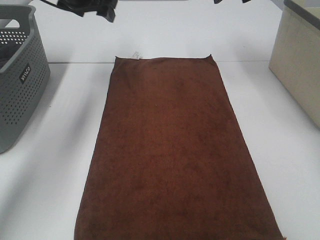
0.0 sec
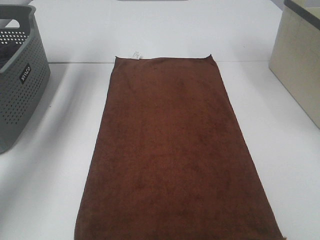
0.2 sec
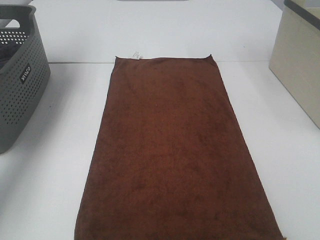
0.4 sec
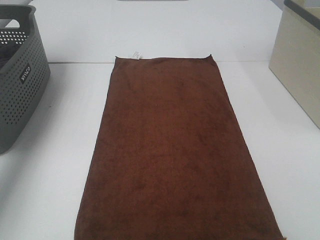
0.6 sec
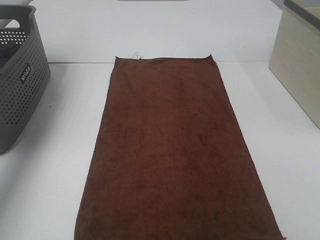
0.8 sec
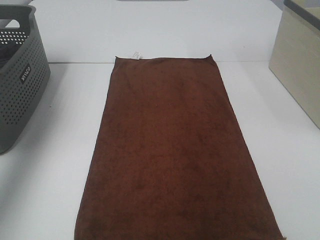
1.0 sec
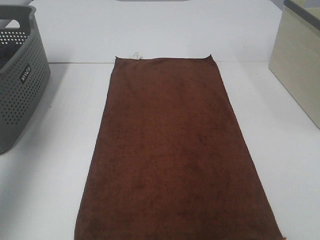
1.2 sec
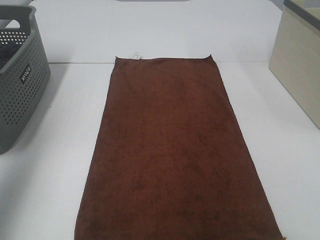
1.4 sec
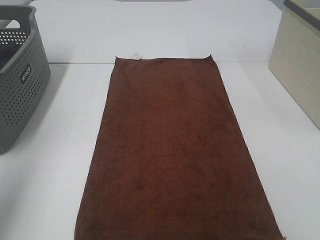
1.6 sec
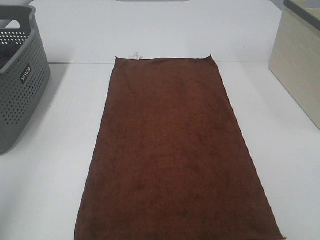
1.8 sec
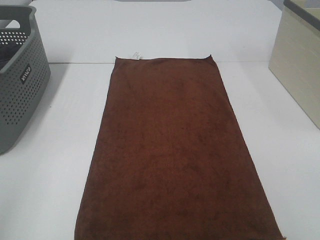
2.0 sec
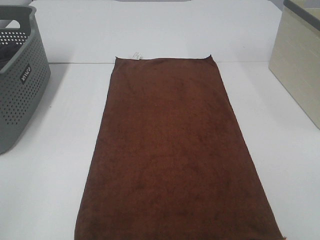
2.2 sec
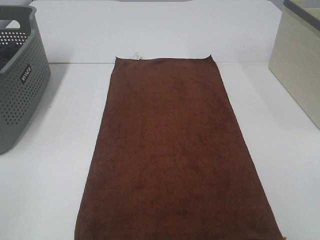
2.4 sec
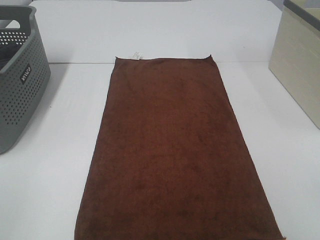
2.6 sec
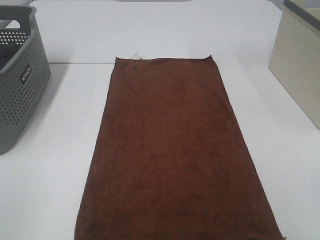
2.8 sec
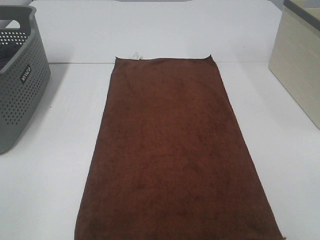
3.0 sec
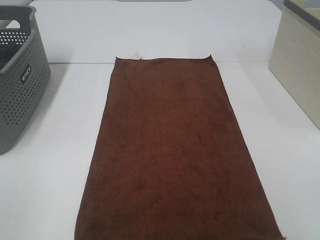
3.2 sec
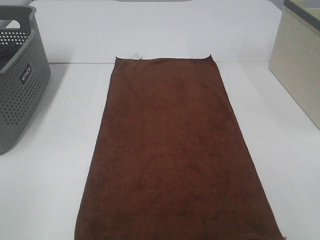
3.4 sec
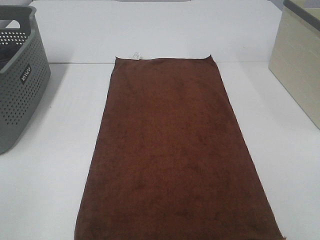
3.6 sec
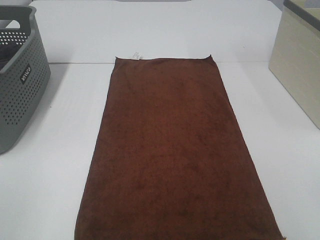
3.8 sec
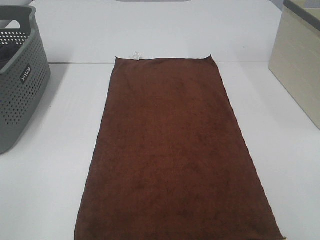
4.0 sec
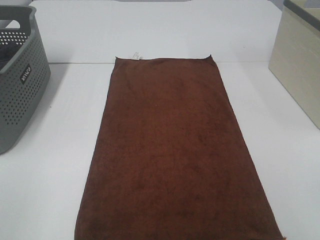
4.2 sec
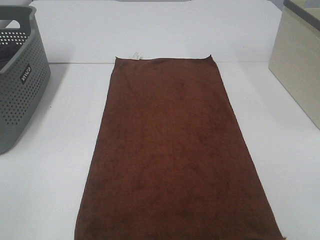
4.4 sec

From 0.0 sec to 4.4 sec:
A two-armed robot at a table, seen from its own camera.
Task of the whole recording: Remove the towel and place it.
From 0.0 sec to 1.4 sec: The left gripper travels backward, upward and to the left by roughly 40 cm. Meanwhile the right gripper moves backward, some 40 cm.
From 1.4 sec to 3.0 sec: The left gripper shifts roughly 25 cm backward and downward.
From 3.0 sec to 4.4 sec: Neither gripper changes place.
